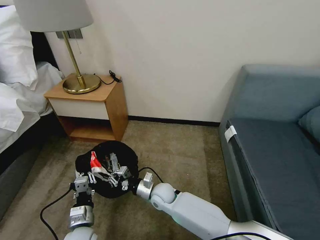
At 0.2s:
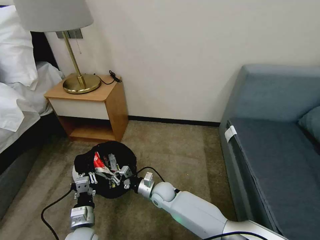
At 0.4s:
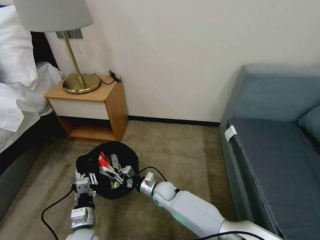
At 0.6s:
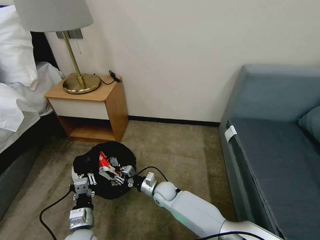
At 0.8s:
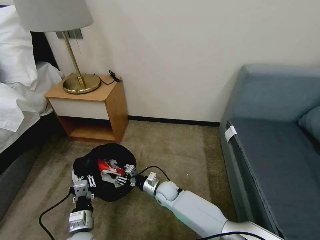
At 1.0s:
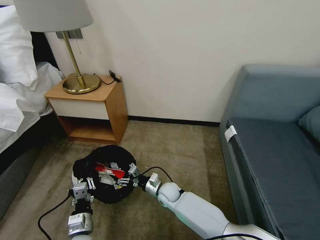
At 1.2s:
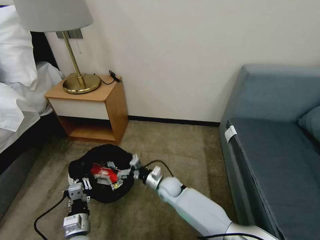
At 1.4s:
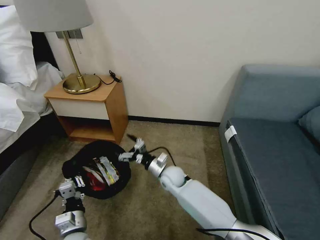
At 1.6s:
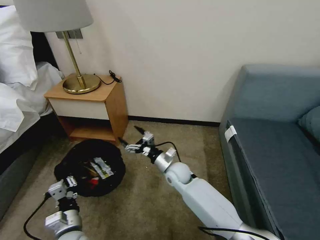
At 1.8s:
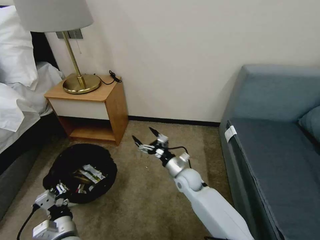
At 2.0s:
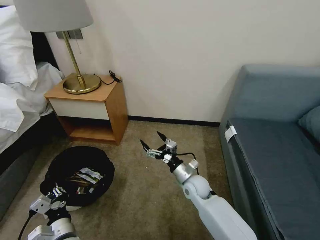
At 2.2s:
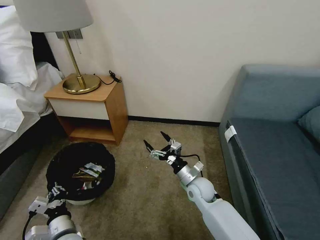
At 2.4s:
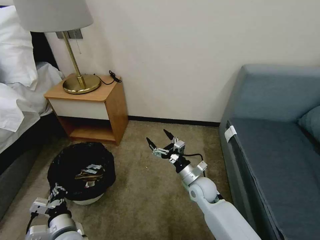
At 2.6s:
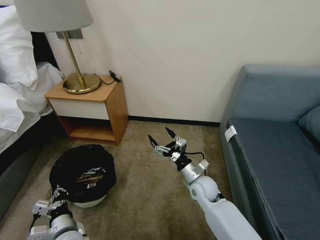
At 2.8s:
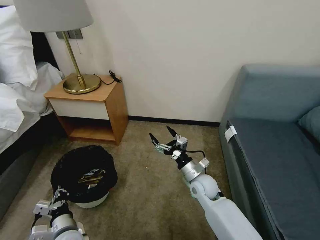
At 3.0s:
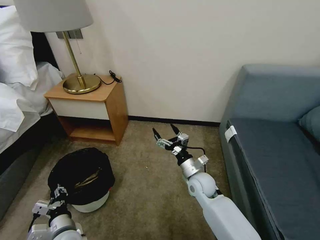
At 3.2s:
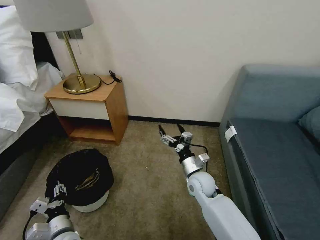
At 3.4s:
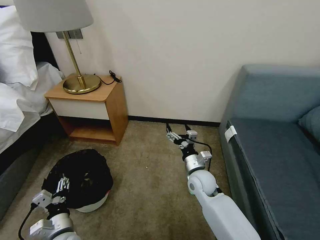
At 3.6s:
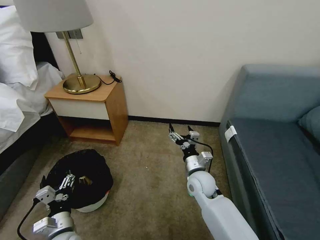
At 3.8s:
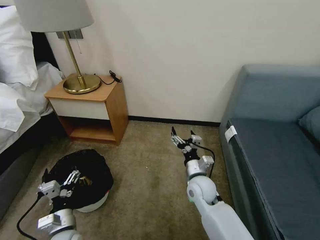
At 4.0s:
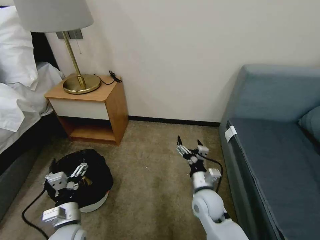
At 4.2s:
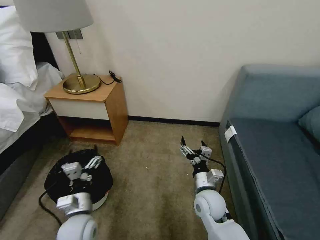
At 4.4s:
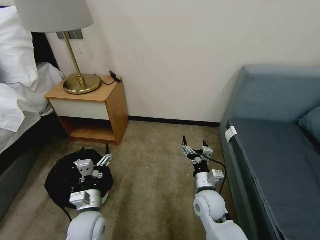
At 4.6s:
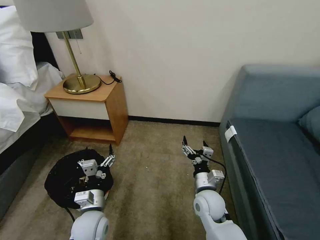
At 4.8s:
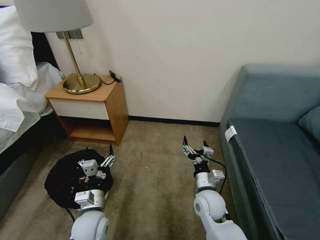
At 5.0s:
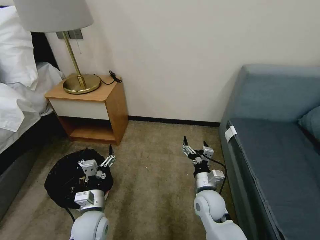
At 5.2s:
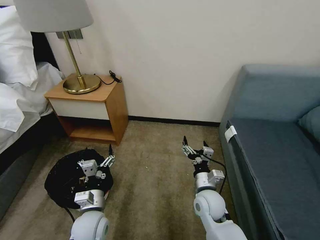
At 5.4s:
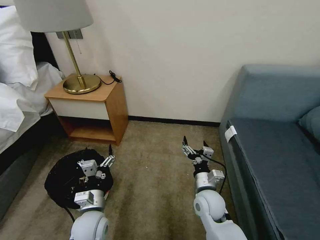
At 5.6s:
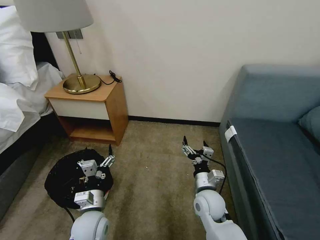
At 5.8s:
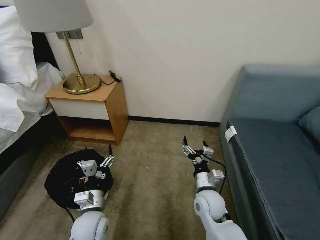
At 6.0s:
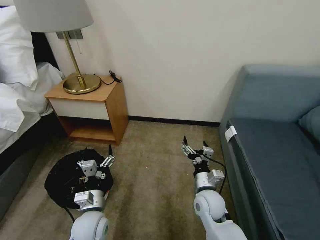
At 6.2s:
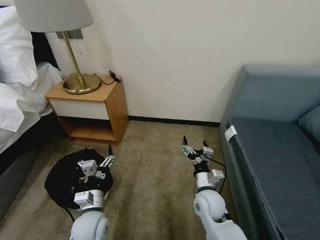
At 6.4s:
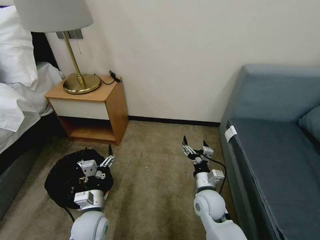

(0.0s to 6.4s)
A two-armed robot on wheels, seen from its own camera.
Task of the whole recording: Pick up the trash bin, then pick up the garbage on the floor and place it into the trash bin.
0.0s - 1.6s: The right gripper is displaced to the right, upward and forward by roughly 10 cm, and opens.
1.6s - 3.2s: The right gripper travels to the right by approximately 5 cm. Meanwhile the left gripper opens.
3.2s - 4.8s: The left gripper travels to the right and upward by approximately 10 cm, and opens up. The right gripper goes some 5 cm backward.
4.8s - 6.4s: The two grippers keep their place.

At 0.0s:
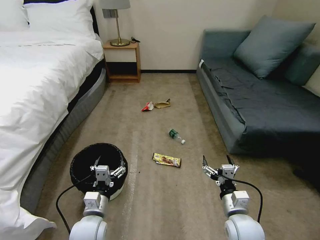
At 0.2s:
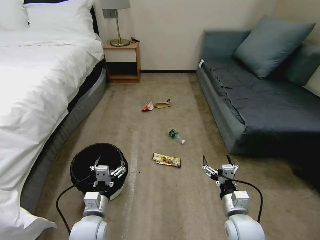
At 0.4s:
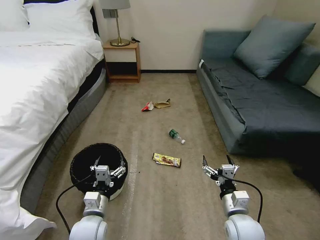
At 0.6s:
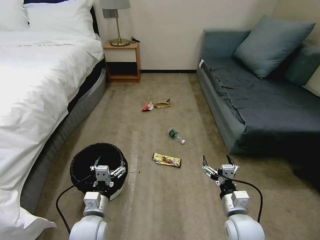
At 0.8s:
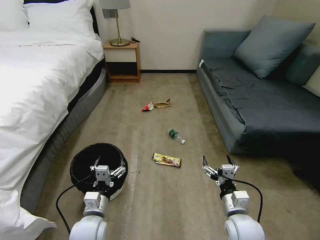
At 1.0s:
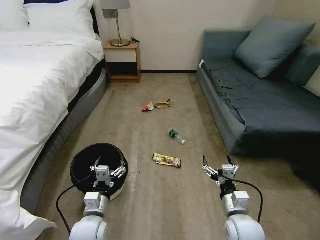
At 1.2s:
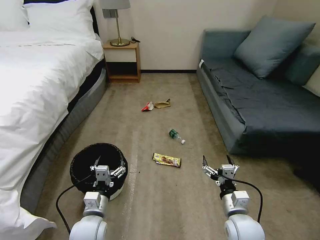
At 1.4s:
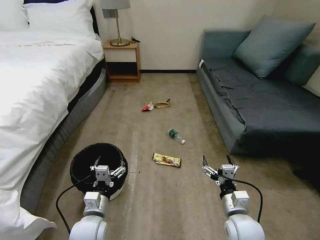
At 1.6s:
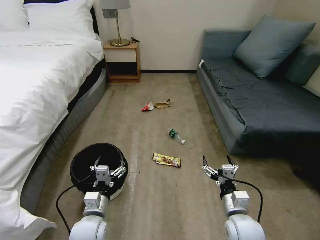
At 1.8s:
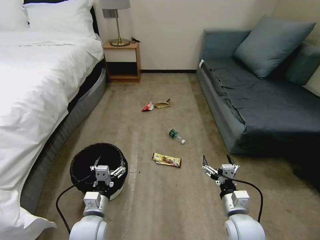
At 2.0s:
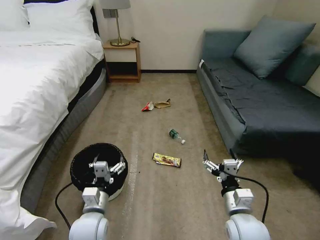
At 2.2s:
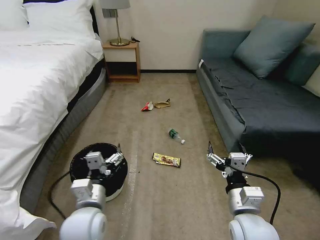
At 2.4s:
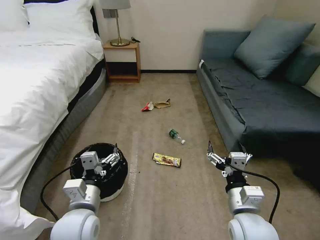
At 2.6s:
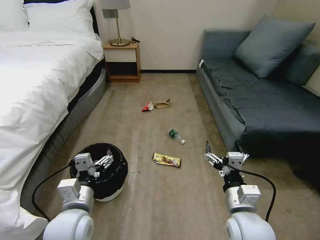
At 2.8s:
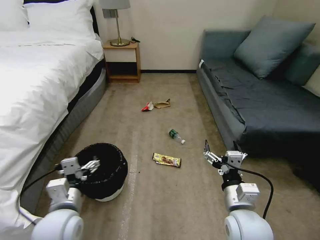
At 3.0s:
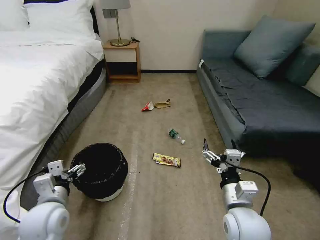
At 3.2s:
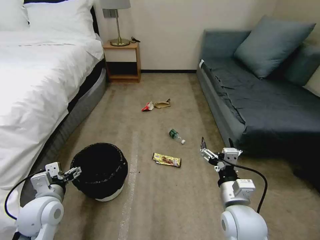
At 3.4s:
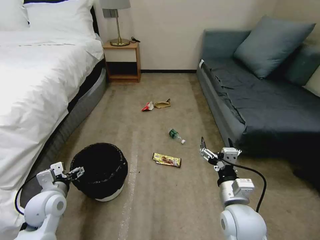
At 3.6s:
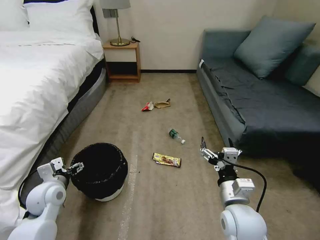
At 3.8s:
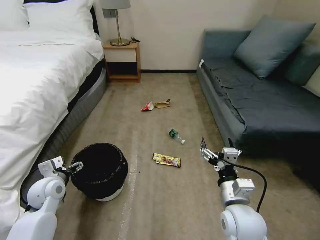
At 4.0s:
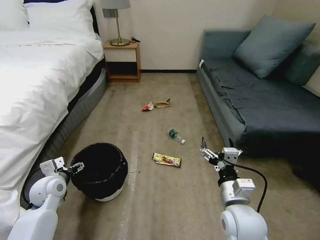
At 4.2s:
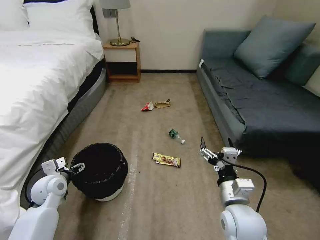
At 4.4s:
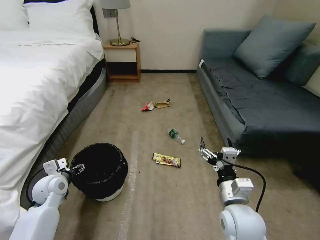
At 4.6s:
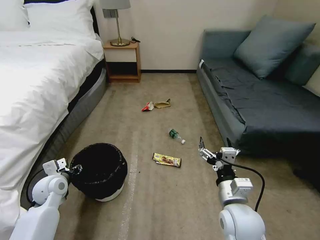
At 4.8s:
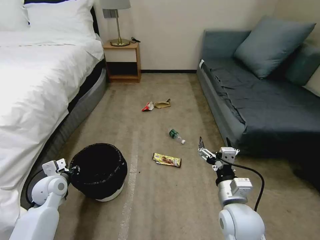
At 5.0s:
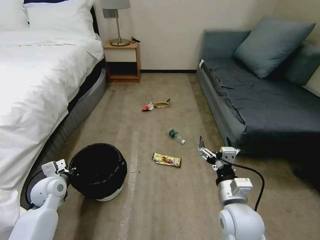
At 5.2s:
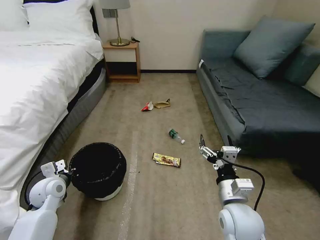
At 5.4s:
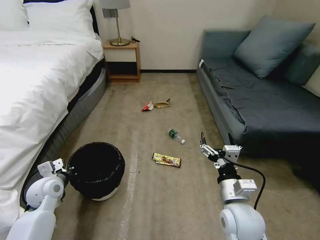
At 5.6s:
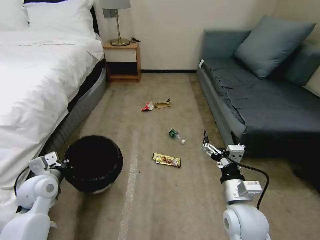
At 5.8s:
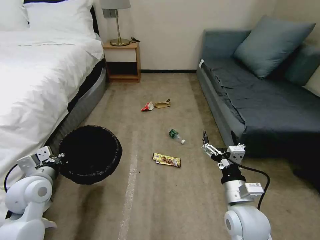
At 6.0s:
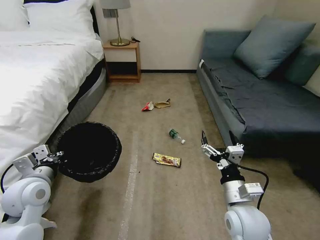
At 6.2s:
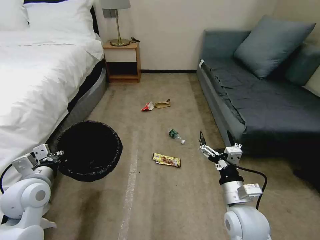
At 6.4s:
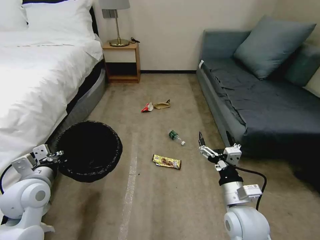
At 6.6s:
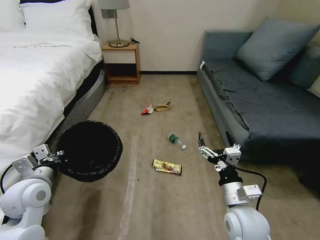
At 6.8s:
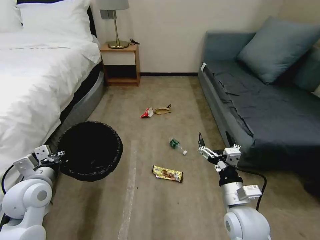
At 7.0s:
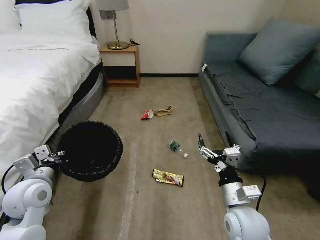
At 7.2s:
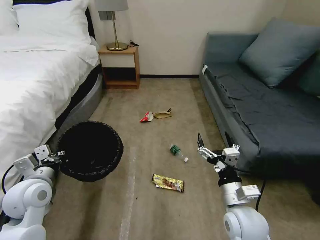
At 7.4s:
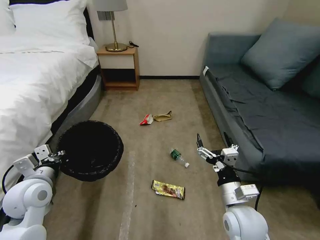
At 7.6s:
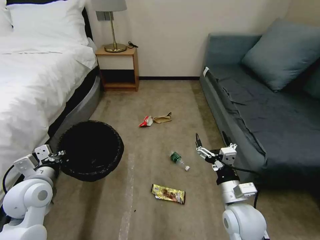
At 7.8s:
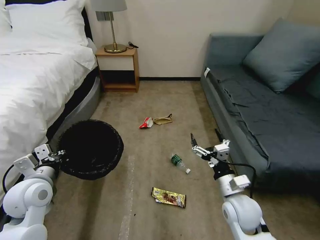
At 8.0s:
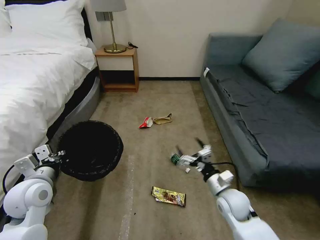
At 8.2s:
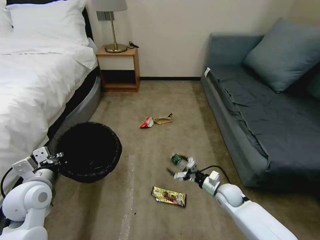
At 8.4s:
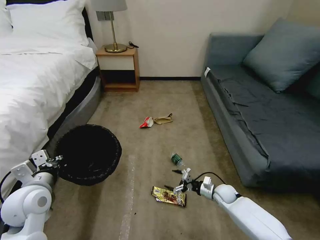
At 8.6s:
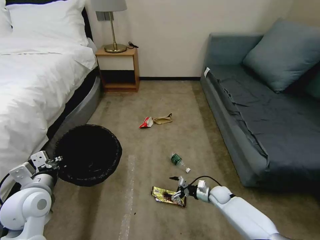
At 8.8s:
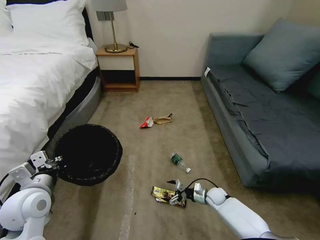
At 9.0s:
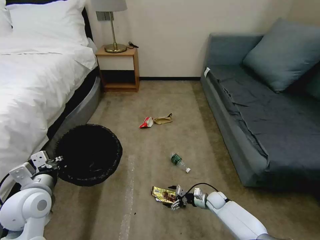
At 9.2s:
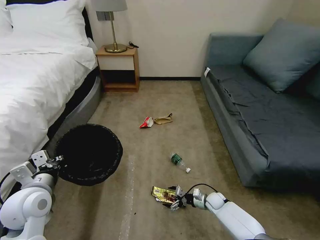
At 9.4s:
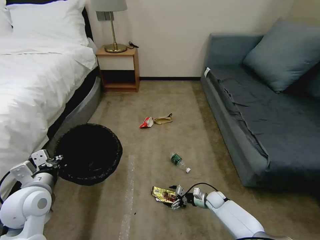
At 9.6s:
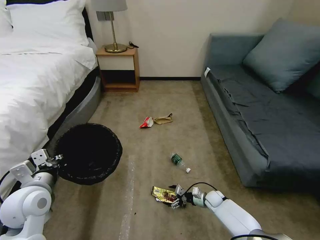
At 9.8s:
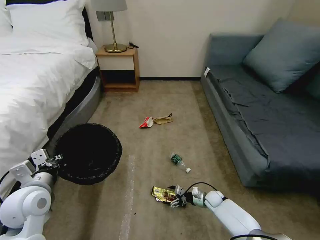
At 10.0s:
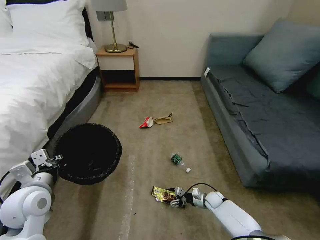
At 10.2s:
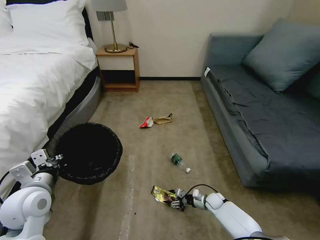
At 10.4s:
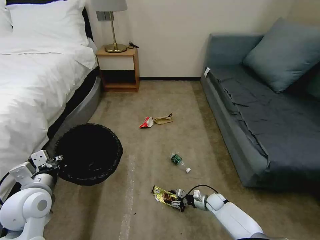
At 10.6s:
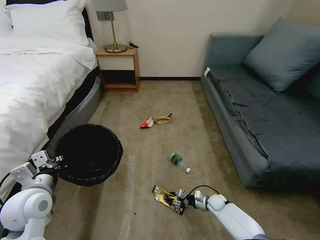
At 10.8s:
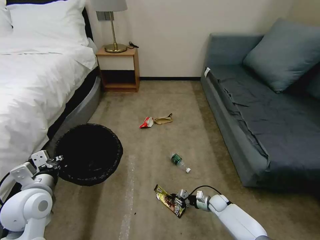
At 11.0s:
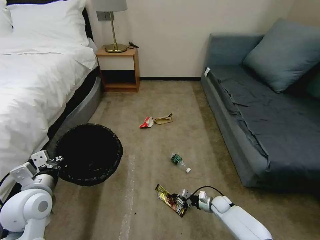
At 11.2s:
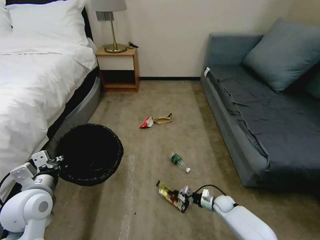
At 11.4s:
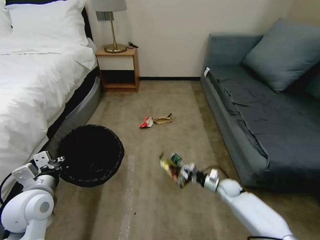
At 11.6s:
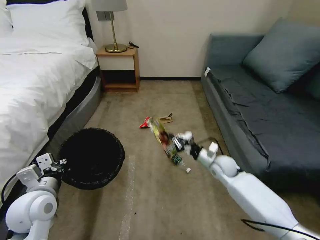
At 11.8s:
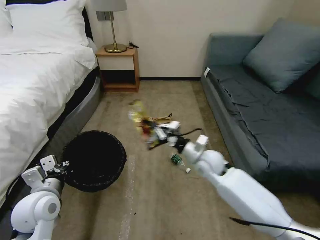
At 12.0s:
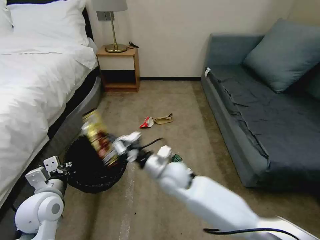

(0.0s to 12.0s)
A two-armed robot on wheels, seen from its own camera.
Task of the whole recording: Pick up the trash bin, then pick up the garbage on the floor and place it into the trash bin.
1.6s - 3.0s: The right gripper is displaced upward by roughly 10 cm. The left gripper travels upward and to the left by about 15 cm.
3.0s - 4.4s: The left gripper shifts roughly 15 cm forward, to the left and downward.
4.4s - 6.0s: The left gripper goes approximately 10 cm upward and backward, and closes up.
7.6s - 9.0s: The right gripper shifts about 30 cm downward and forward.
9.0s - 10.4s: The right gripper closes.
10.4s - 12.0s: The right gripper travels upward and to the left by about 40 cm, and closes its fingers.

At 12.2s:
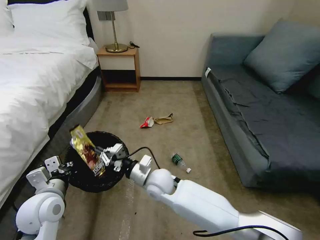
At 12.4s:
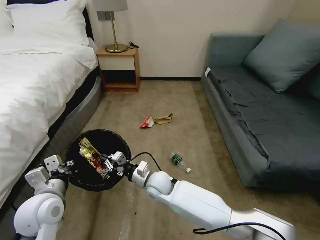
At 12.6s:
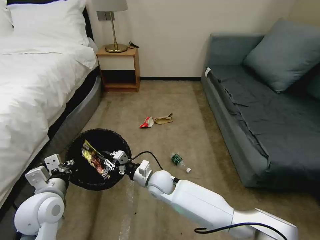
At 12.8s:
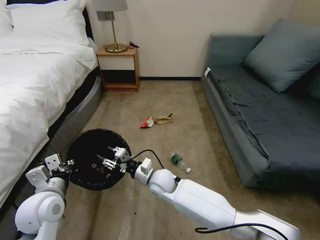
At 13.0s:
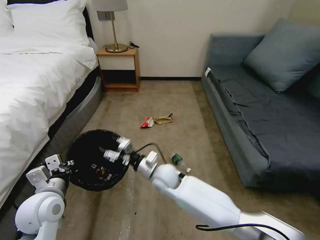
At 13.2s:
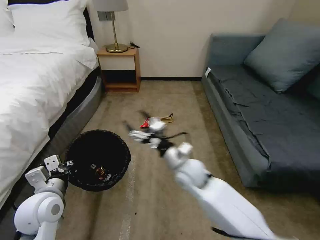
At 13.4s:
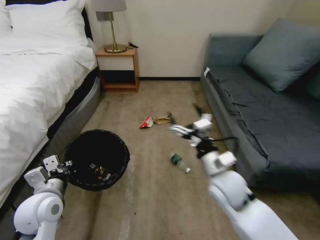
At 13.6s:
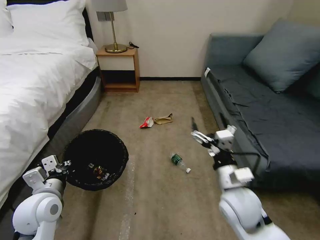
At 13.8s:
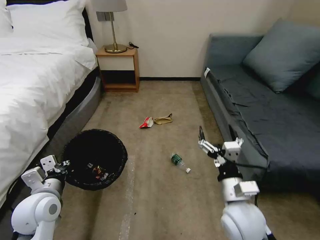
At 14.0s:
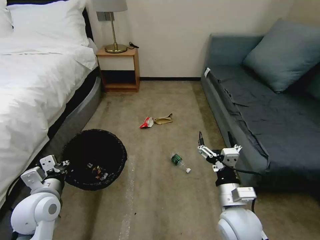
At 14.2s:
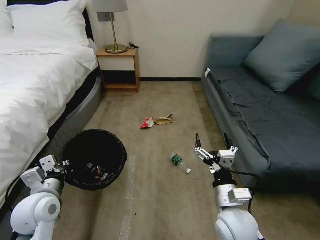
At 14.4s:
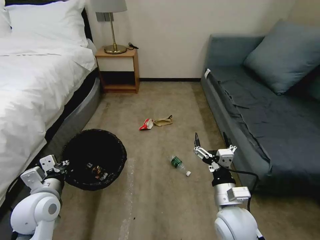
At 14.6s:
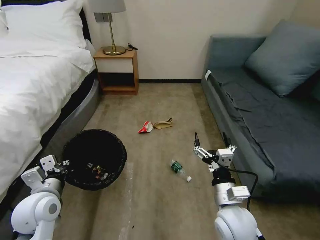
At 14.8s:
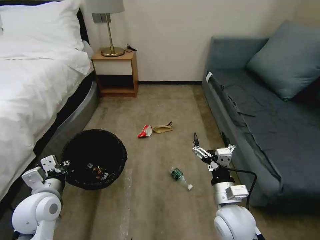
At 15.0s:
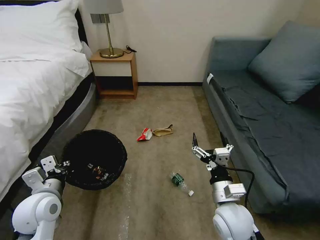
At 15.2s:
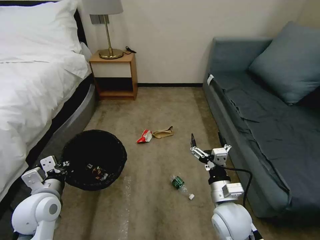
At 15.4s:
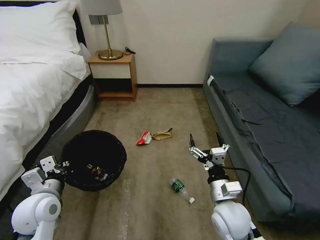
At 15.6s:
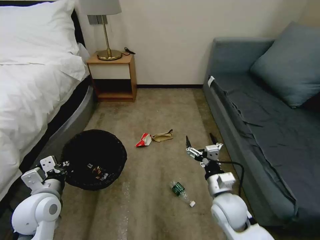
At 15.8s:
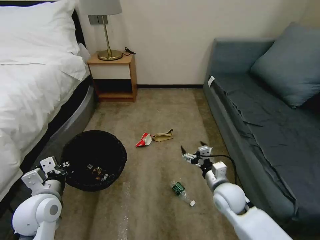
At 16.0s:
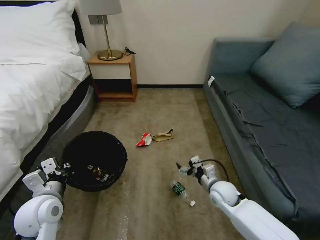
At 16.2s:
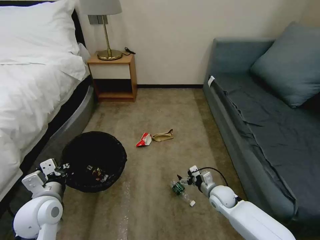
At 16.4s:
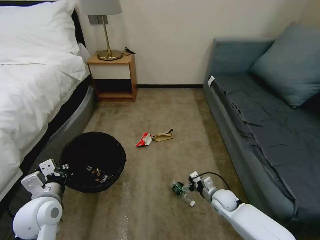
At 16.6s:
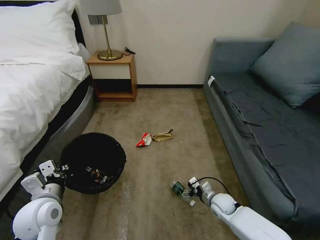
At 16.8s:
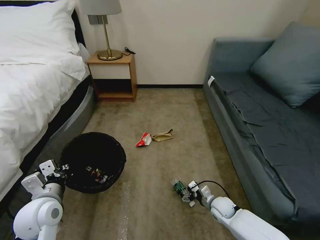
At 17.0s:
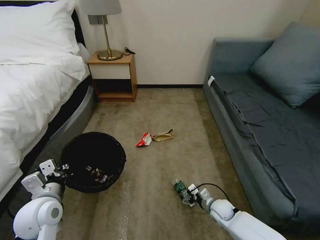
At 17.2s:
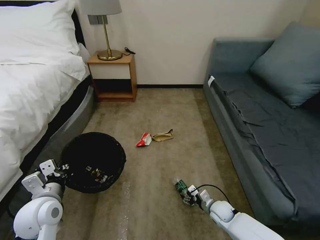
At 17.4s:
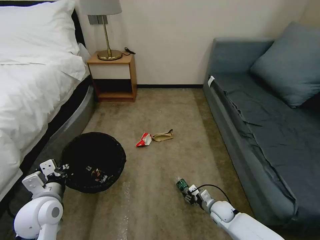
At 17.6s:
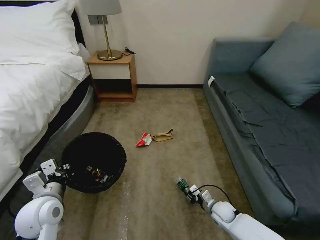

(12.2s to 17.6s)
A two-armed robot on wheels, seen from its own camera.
Task of the whole recording: Pick up the trash bin, then pick up the garbage on the floor and place it into the trash bin.
12.2s - 13.6s: The right gripper goes some 25 cm to the right and backward, and opens.
13.6s - 15.0s: The right gripper changes place by roughly 5 cm.
15.0s - 16.2s: The right gripper moves downward and forward, roughly 20 cm.
16.2s - 17.6s: The right gripper travels downward by about 10 cm, and closes its fingers.
